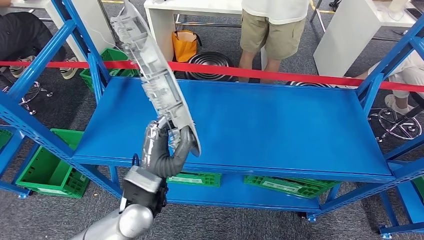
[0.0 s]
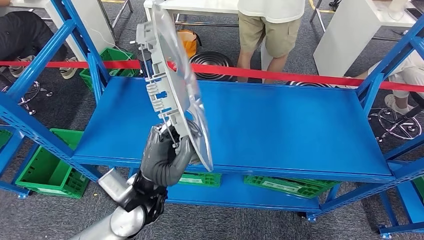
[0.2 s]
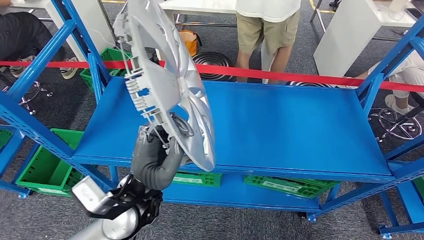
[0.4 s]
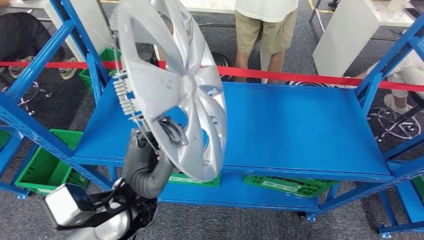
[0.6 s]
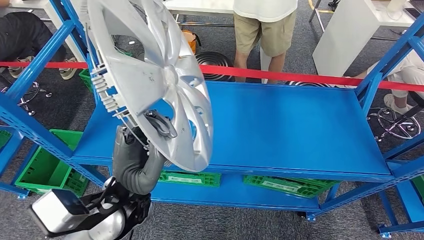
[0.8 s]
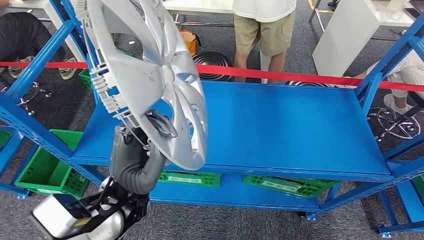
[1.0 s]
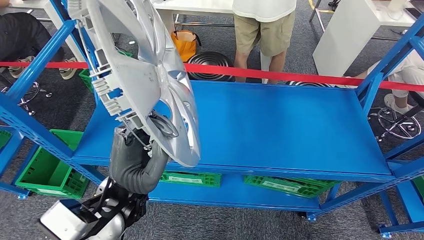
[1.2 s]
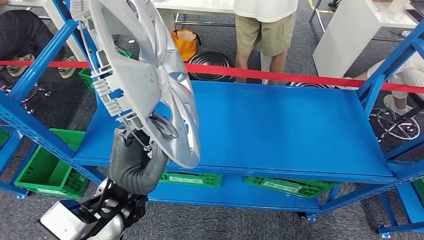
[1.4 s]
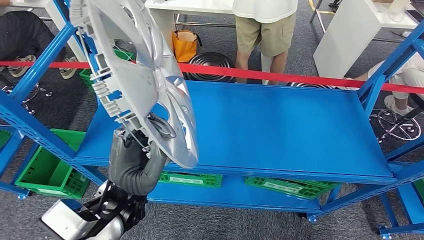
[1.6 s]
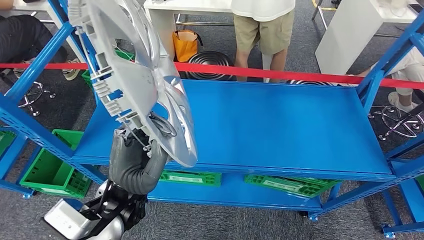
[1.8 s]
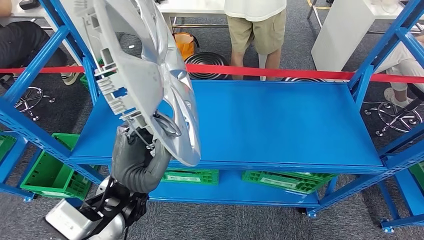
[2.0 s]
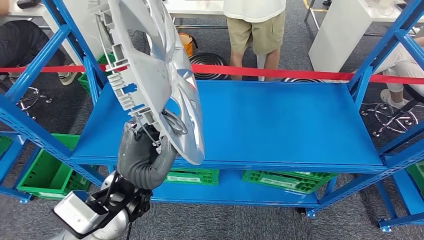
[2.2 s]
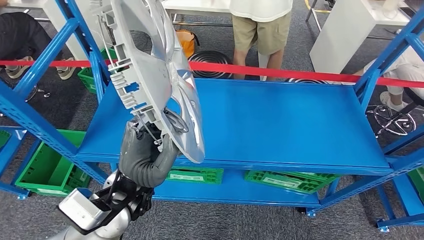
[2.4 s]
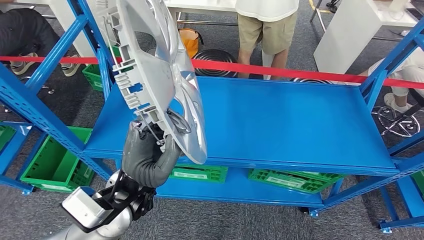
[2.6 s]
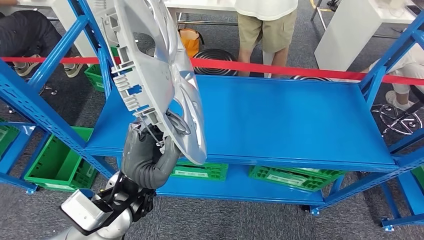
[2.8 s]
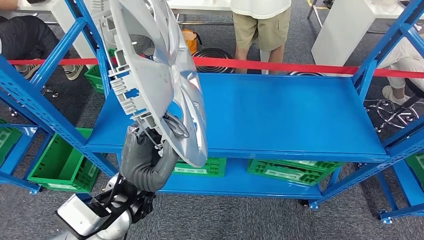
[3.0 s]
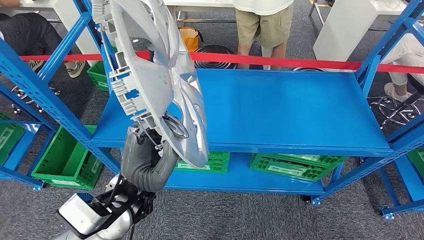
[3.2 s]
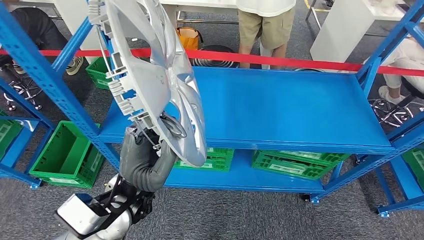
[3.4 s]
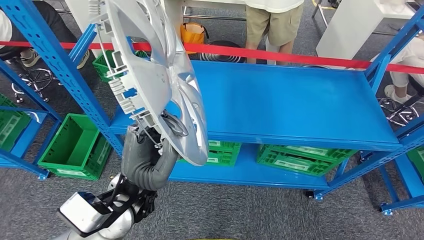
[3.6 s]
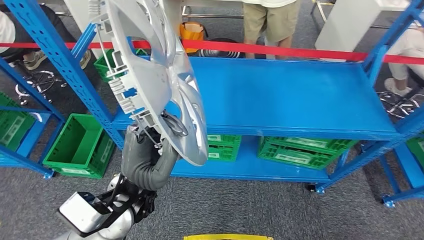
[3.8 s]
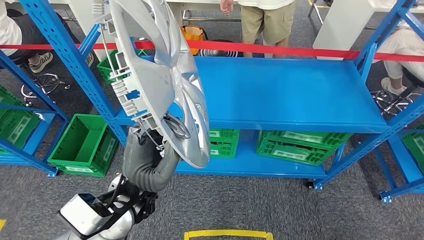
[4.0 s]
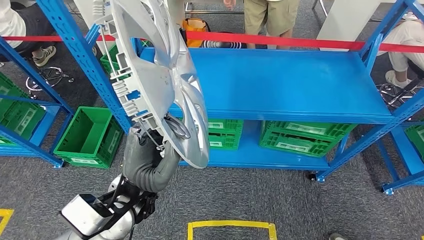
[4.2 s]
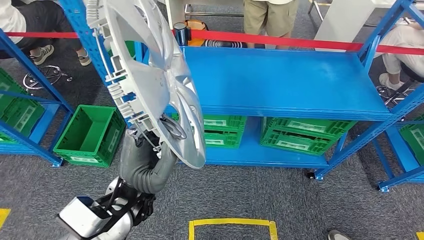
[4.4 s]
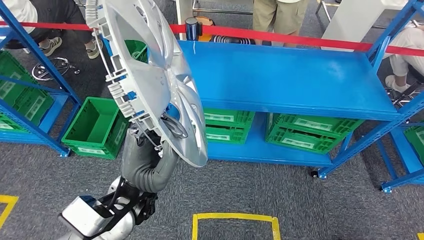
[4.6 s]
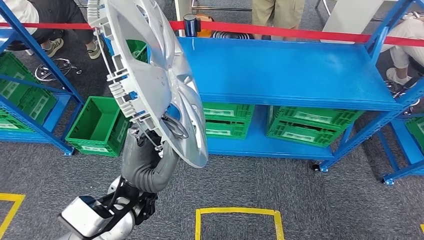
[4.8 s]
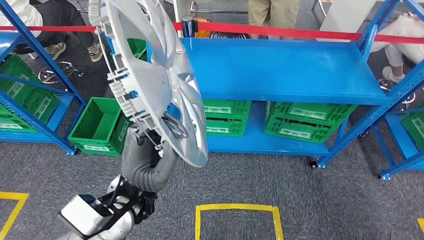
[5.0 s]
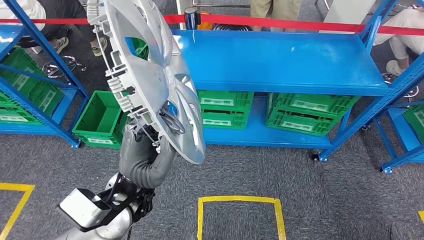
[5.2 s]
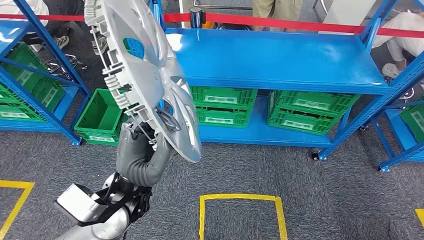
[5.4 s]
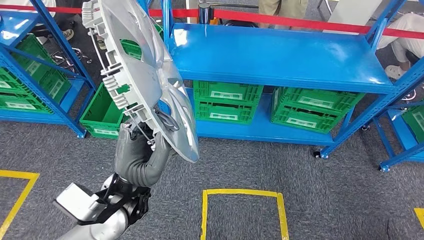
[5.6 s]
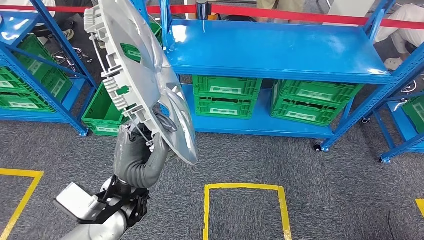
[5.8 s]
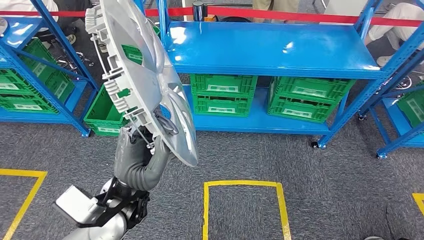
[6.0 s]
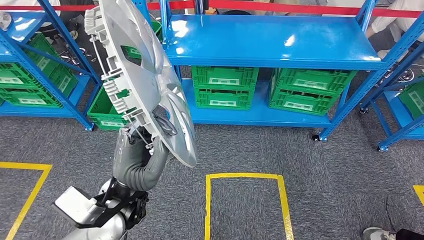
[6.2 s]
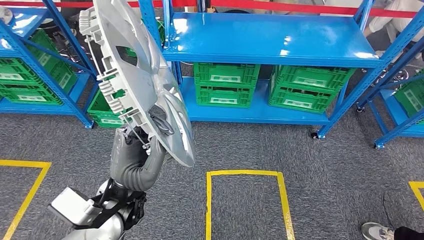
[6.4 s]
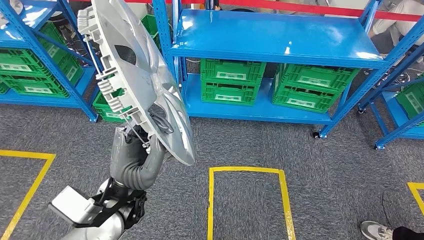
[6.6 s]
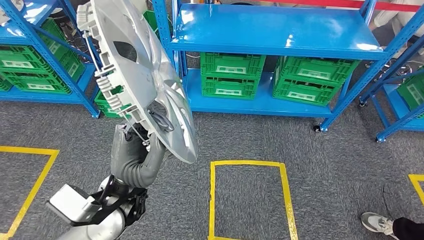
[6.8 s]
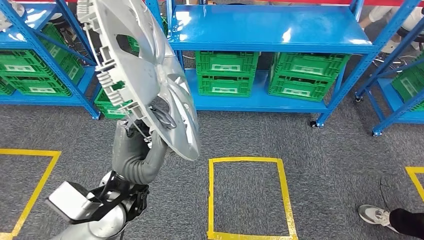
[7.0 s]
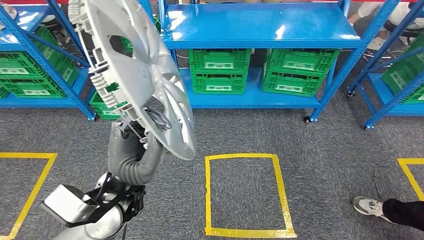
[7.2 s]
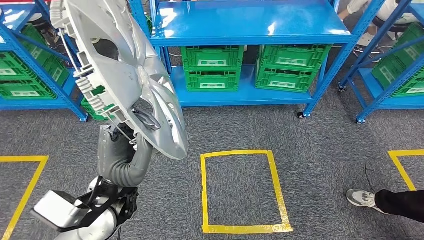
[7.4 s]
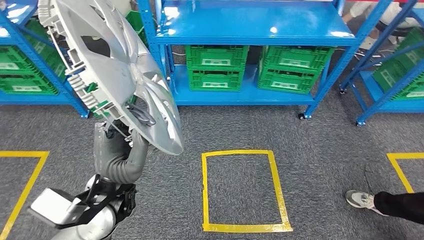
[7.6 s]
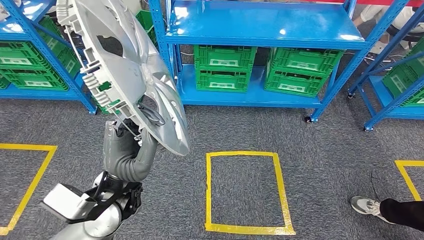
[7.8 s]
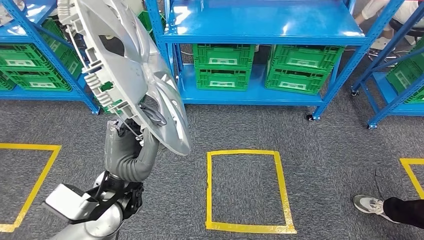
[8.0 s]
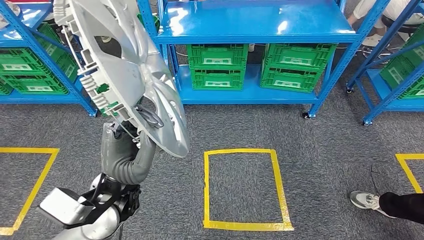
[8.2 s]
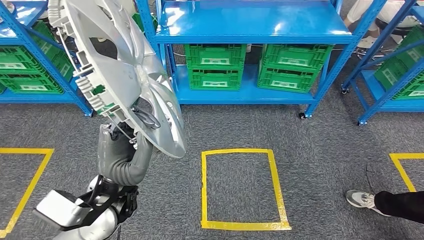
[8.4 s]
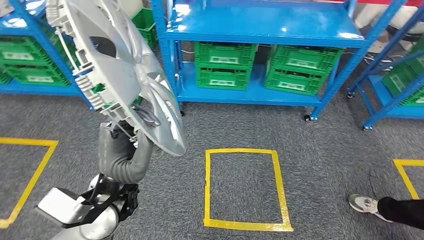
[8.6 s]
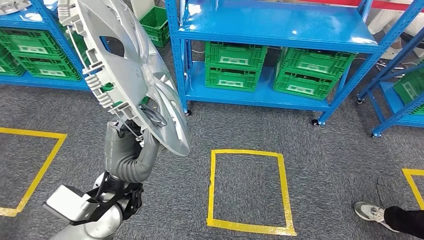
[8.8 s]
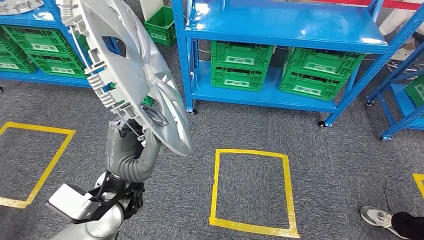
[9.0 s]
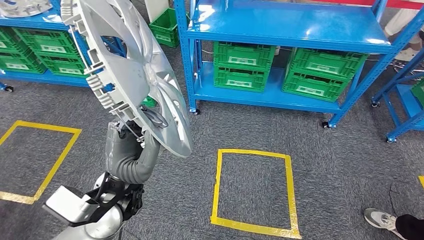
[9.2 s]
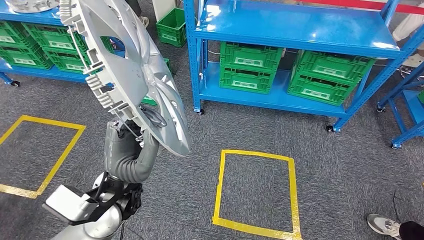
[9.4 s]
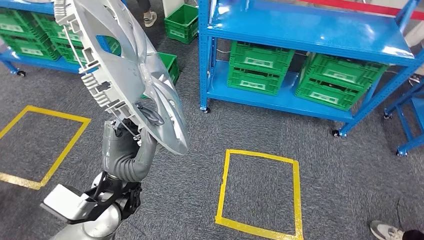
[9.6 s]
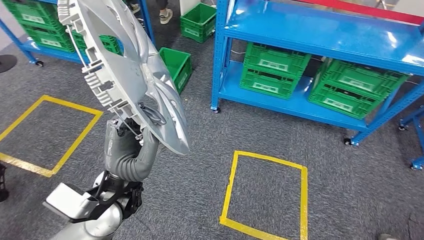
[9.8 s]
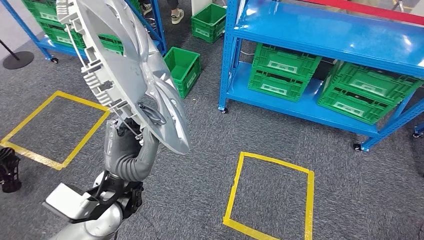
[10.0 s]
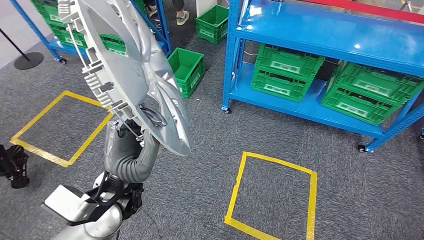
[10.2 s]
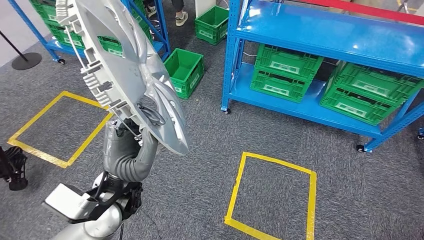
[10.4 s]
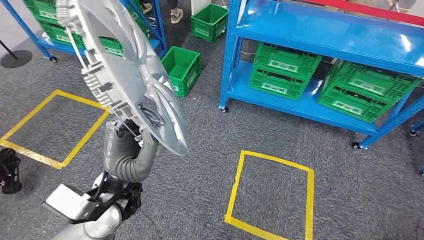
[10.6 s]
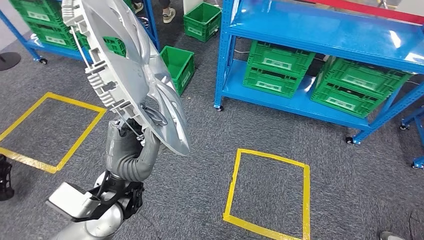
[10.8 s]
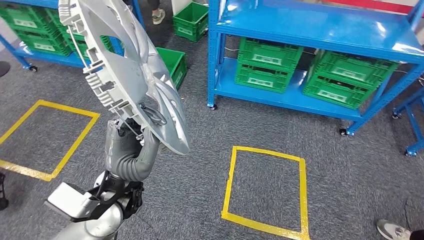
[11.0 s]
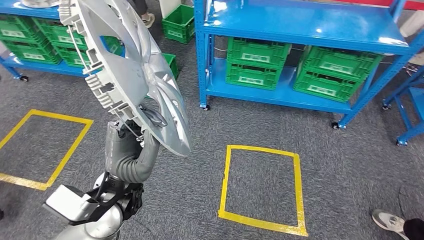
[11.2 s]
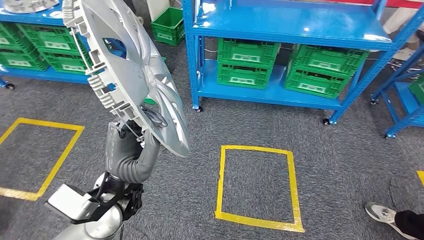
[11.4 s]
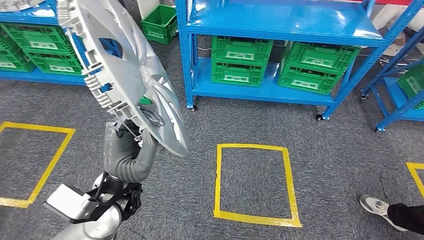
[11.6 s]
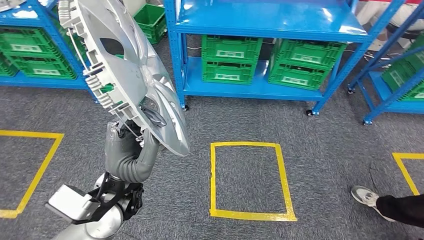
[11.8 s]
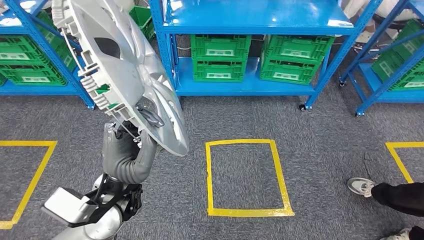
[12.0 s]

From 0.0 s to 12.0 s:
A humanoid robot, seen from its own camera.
Step, from 0.0 s to 2.4 s: Pick up the small component from the shelf.

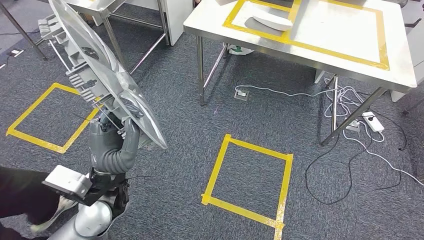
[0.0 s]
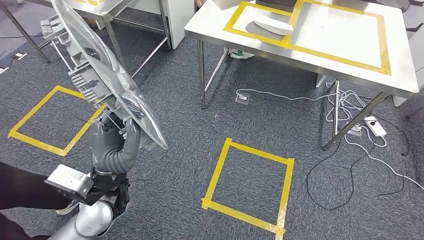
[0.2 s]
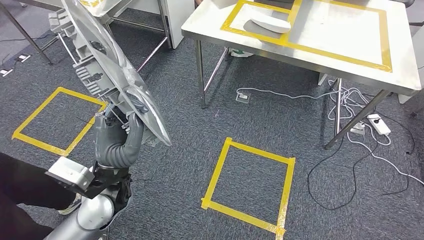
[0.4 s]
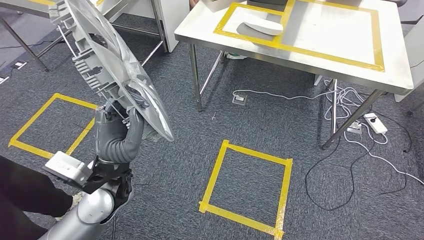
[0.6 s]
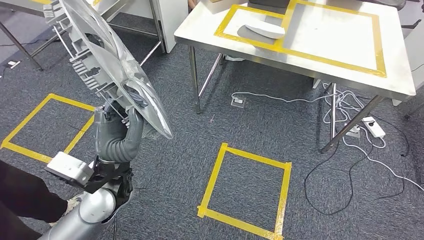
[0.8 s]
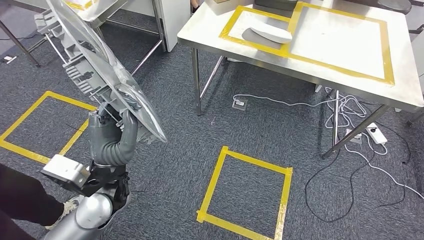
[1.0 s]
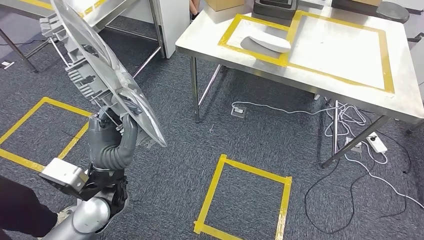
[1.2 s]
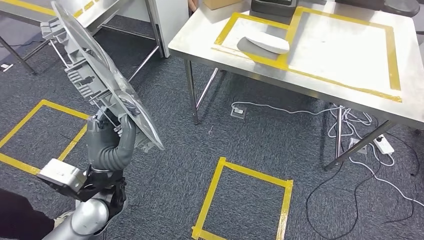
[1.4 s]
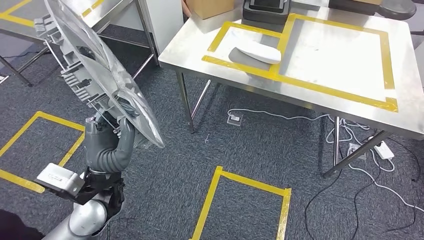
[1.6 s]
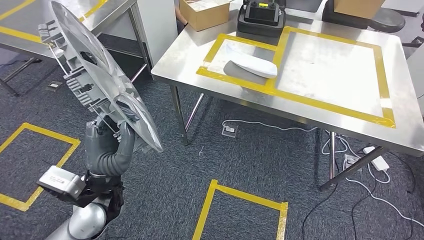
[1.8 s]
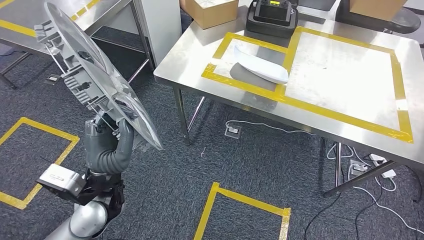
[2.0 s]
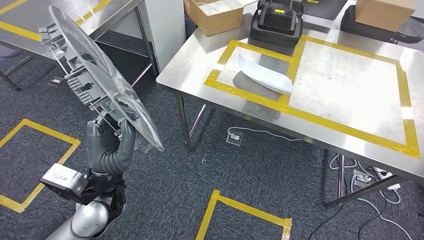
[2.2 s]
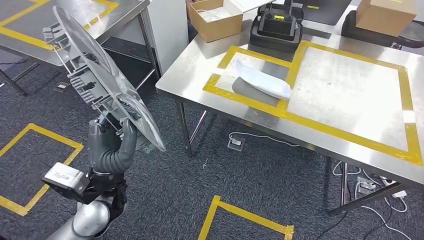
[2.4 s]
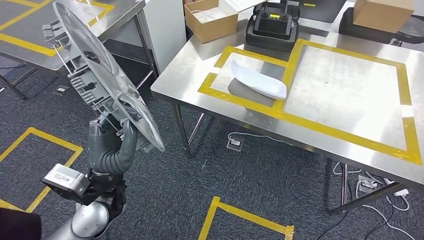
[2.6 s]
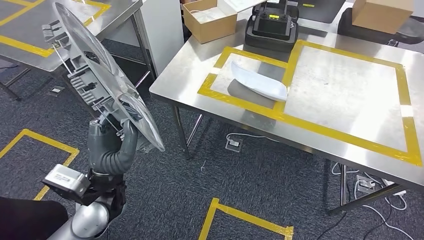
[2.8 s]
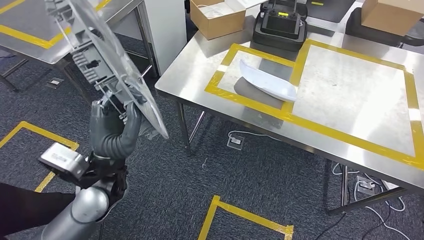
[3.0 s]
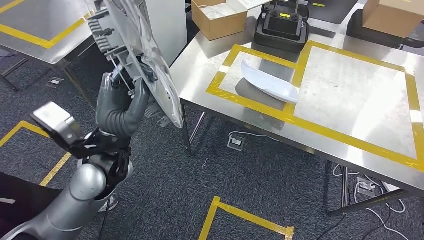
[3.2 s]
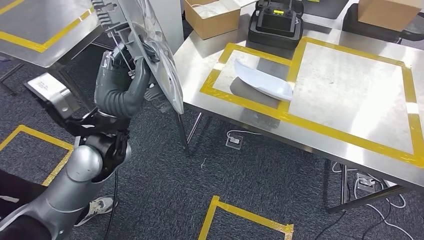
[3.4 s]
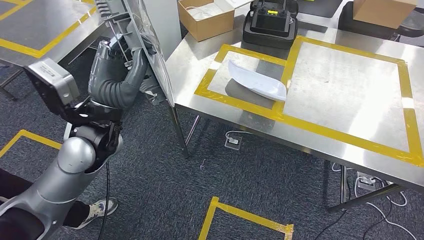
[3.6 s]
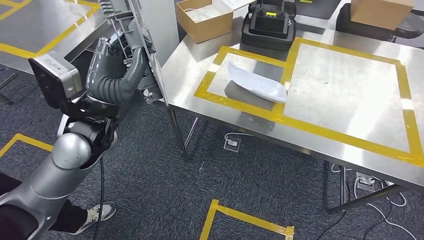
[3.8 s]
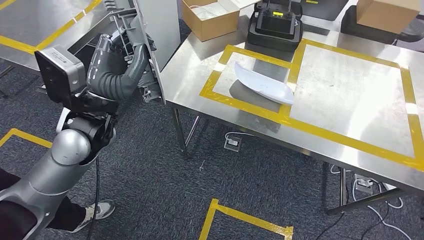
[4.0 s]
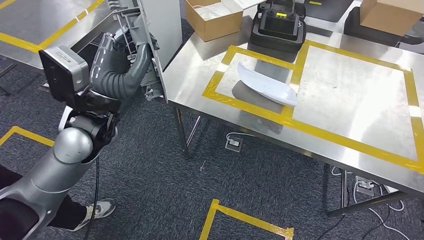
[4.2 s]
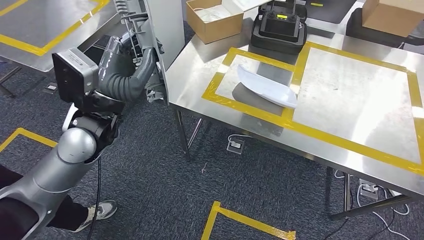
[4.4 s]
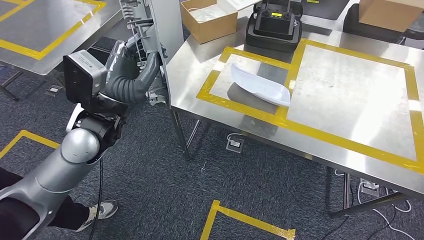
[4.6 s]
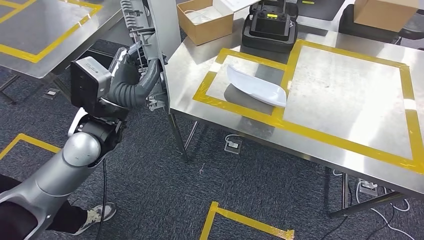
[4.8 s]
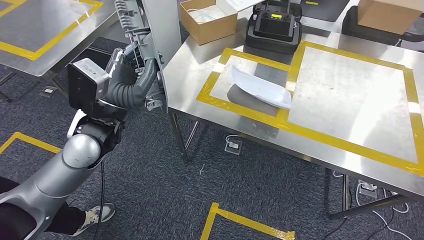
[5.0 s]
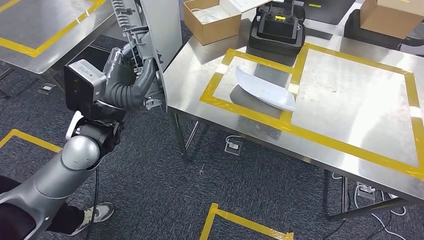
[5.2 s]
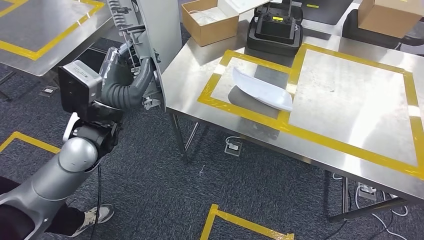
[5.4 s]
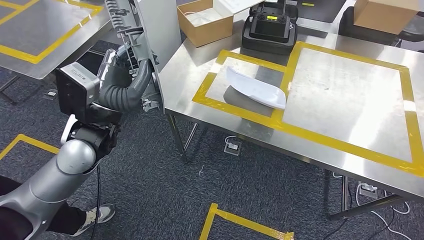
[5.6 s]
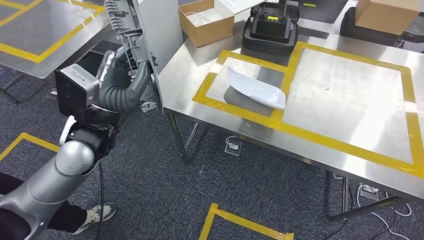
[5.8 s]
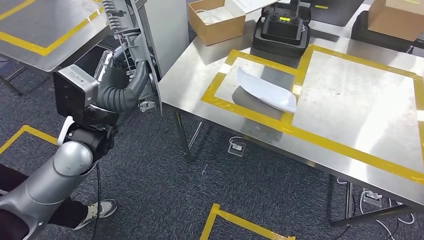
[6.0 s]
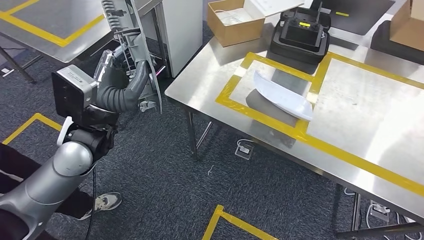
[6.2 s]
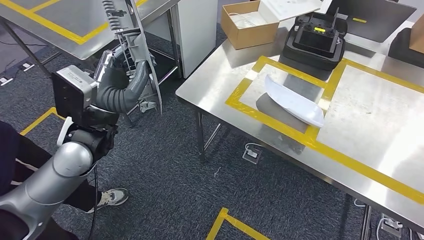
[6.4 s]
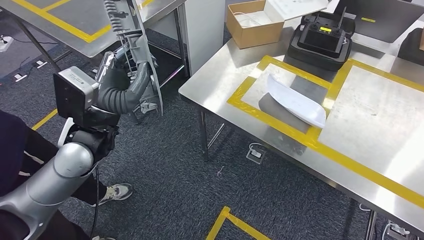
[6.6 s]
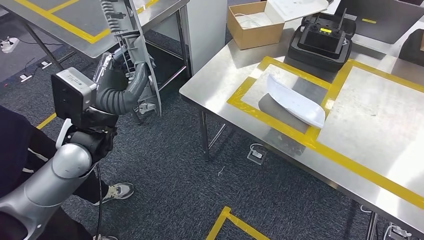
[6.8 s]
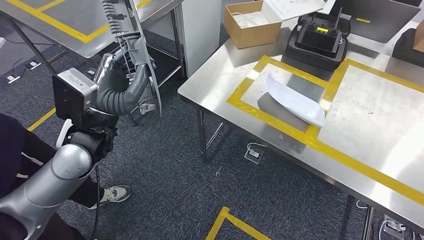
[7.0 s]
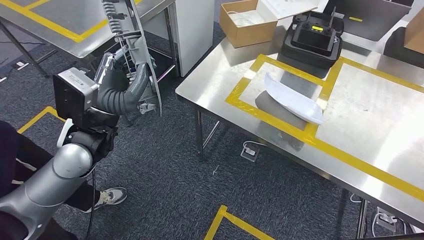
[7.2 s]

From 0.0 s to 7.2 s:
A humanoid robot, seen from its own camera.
Step, from 0.0 s to 4.8 s: Bring the small component to the front of the workbench.
